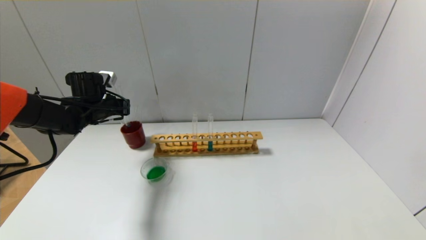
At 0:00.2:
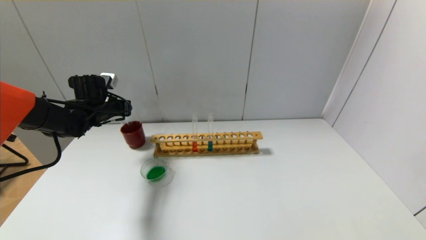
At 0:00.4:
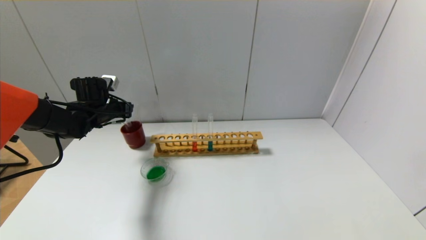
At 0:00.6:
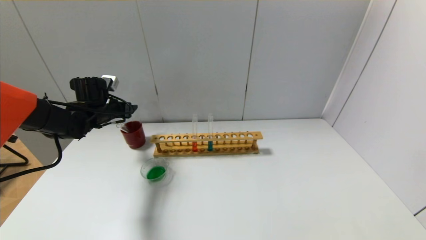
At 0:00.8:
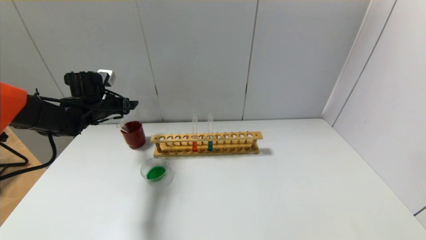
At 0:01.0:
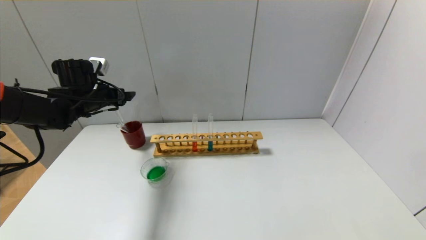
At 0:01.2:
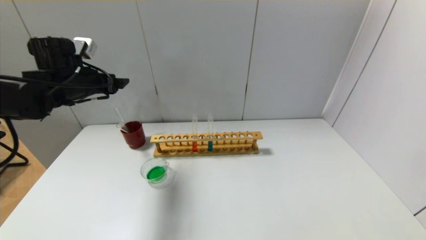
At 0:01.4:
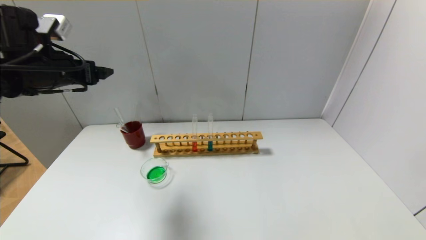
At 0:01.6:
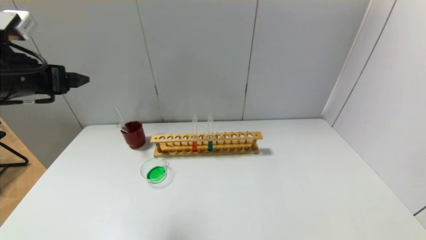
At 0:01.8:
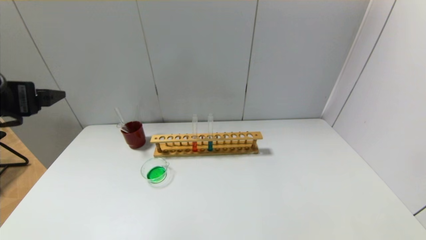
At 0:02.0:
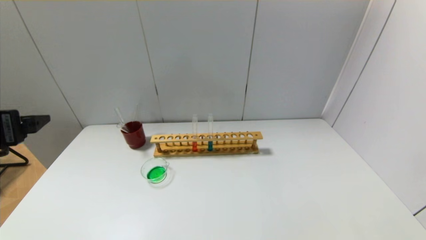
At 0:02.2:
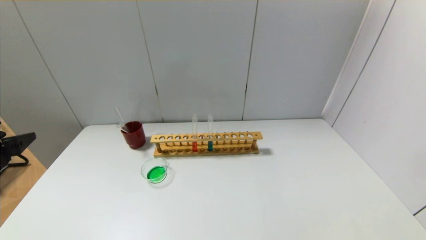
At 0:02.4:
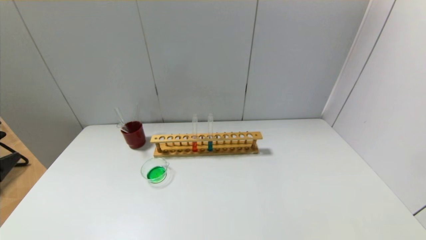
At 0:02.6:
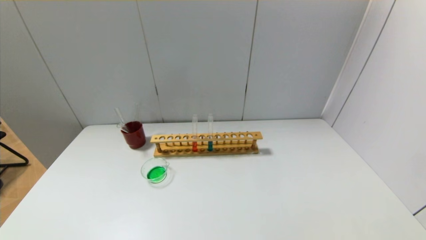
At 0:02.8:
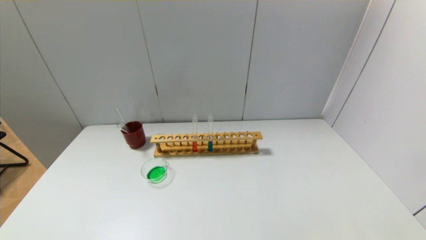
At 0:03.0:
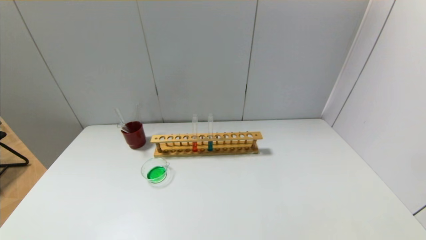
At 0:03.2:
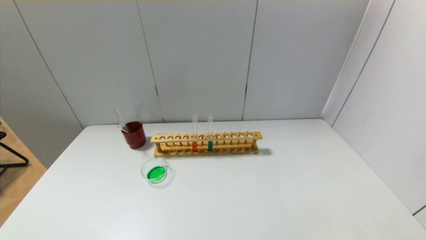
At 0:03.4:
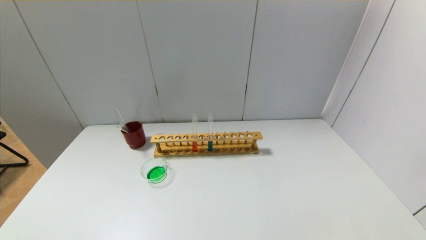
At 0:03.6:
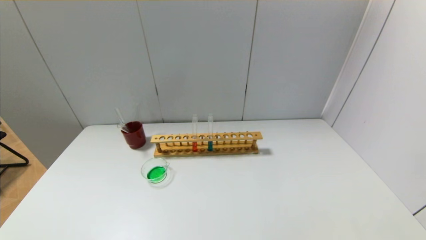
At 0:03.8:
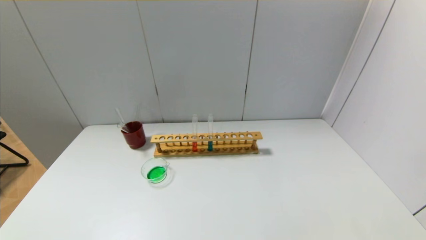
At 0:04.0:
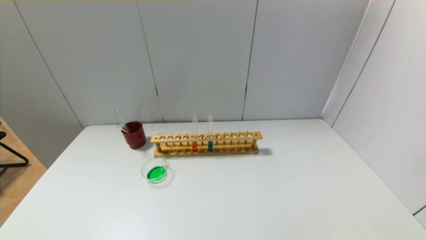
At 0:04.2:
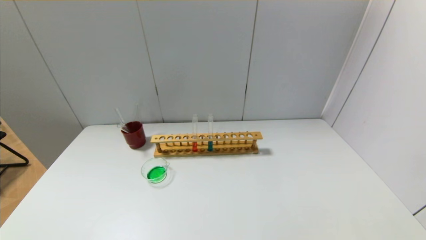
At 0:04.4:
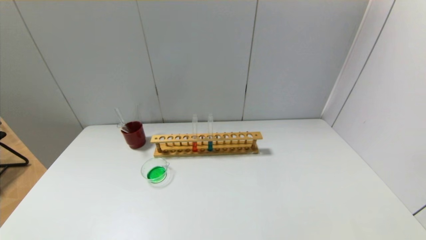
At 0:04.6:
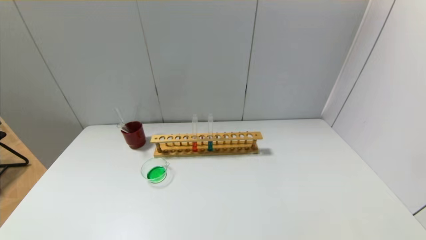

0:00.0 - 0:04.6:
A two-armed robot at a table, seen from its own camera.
0:00.0 - 0:01.6: The left gripper heads backward and upward, covering some 25 cm, and opens.
0:01.6 - 0:03.0: The left gripper heads backward and downward, covering some 30 cm.
